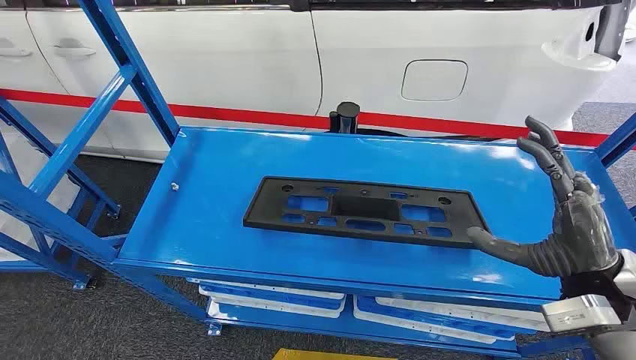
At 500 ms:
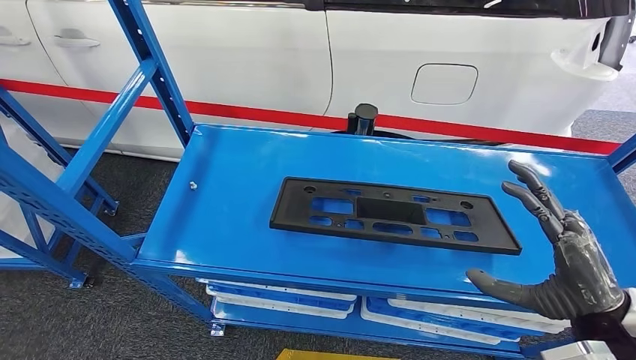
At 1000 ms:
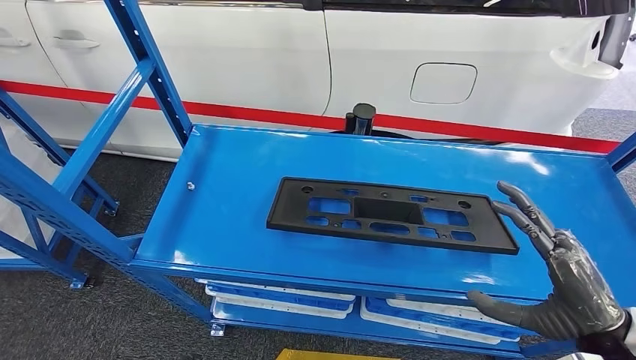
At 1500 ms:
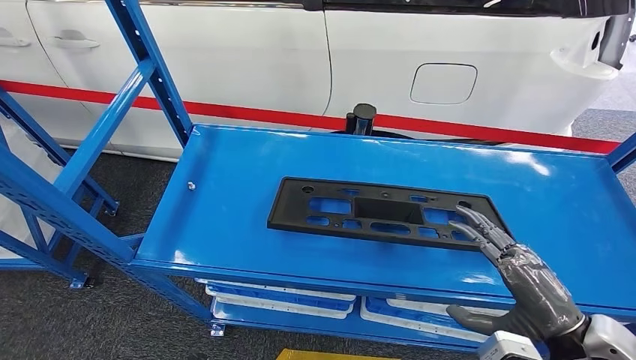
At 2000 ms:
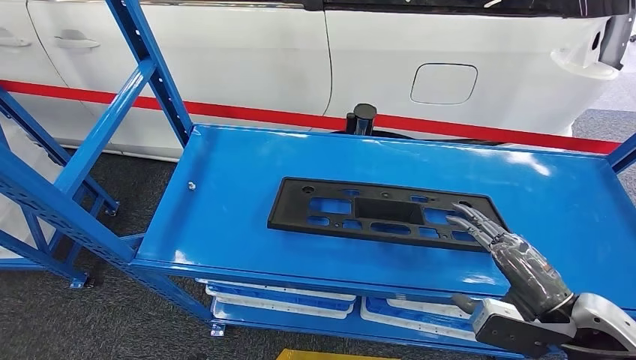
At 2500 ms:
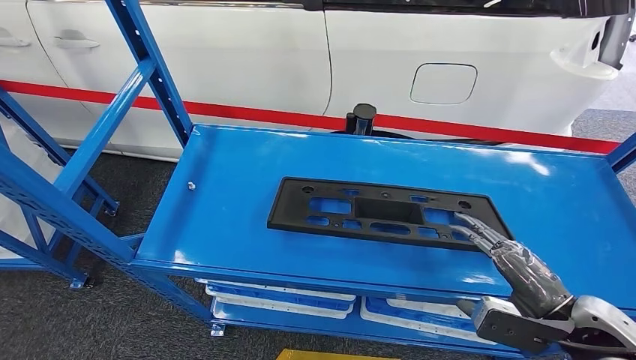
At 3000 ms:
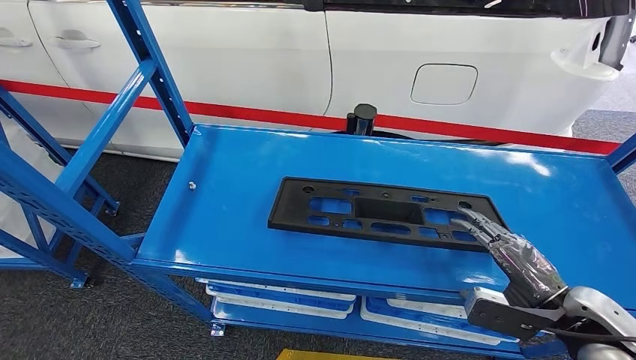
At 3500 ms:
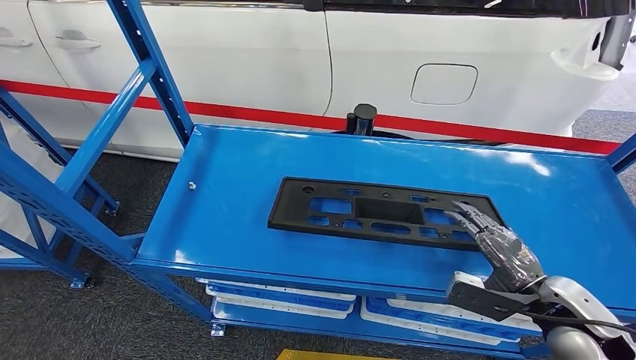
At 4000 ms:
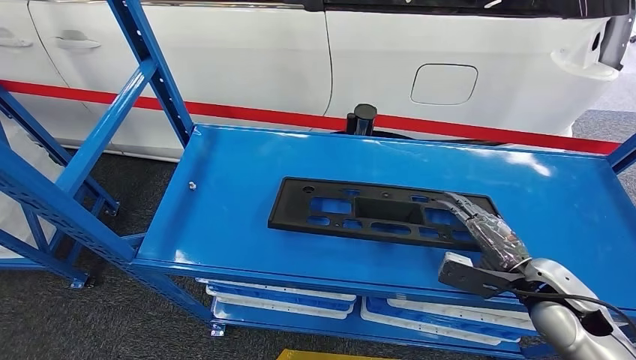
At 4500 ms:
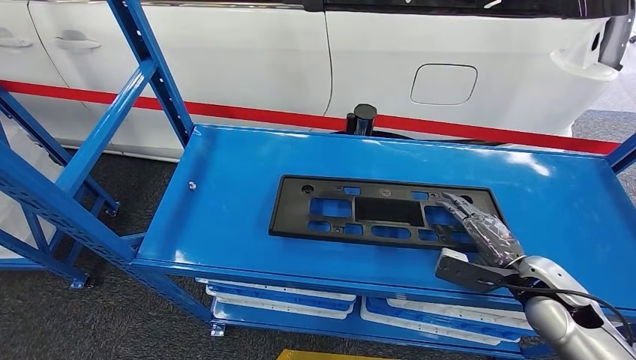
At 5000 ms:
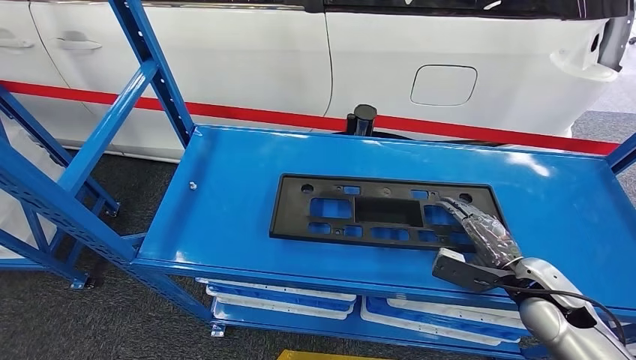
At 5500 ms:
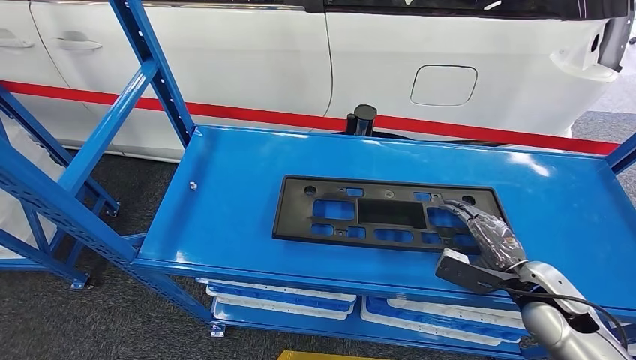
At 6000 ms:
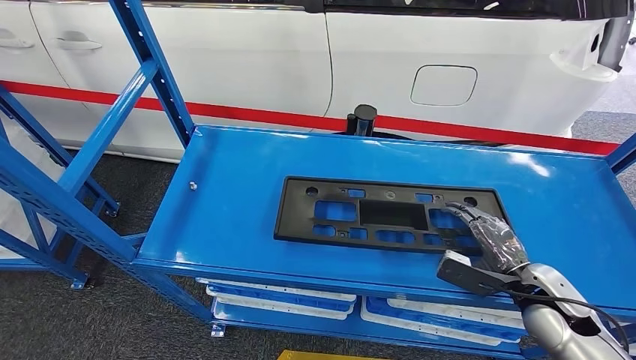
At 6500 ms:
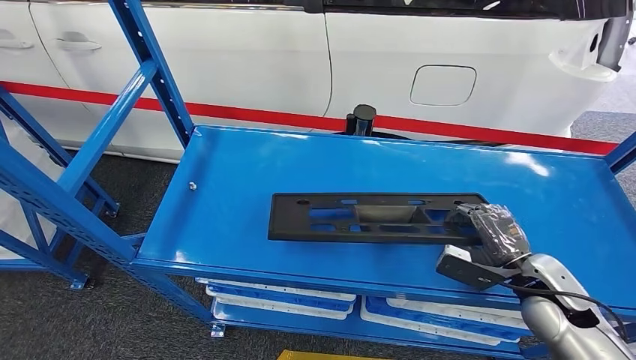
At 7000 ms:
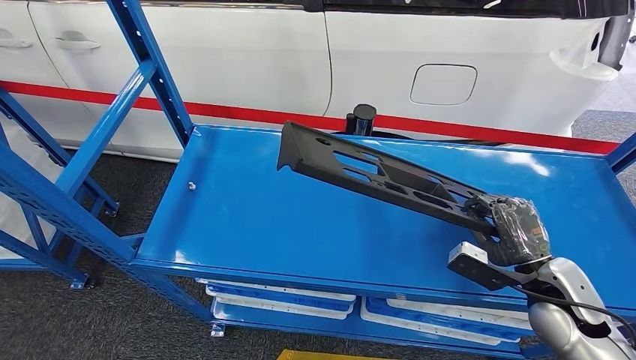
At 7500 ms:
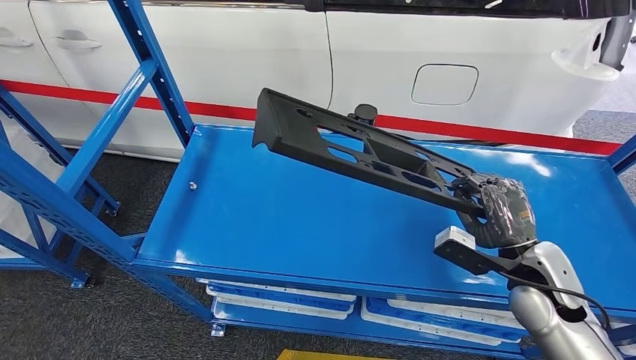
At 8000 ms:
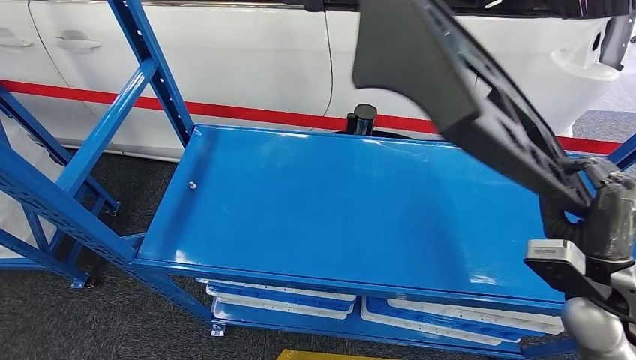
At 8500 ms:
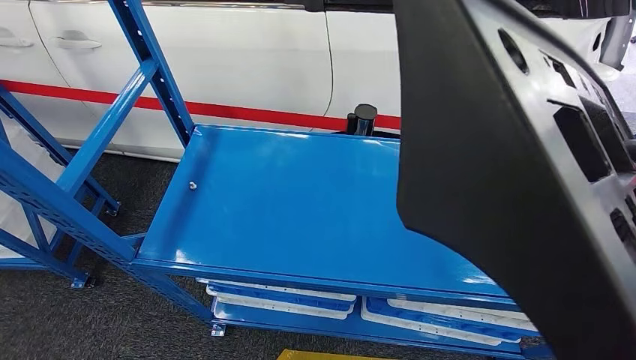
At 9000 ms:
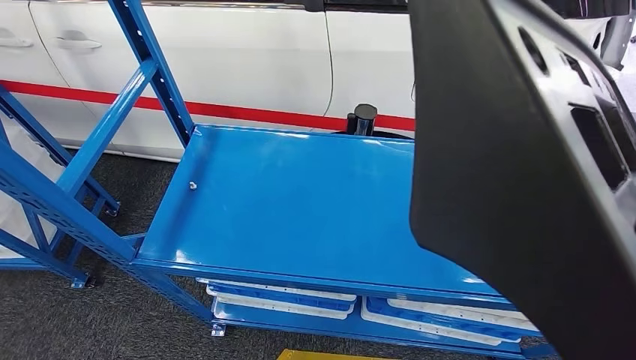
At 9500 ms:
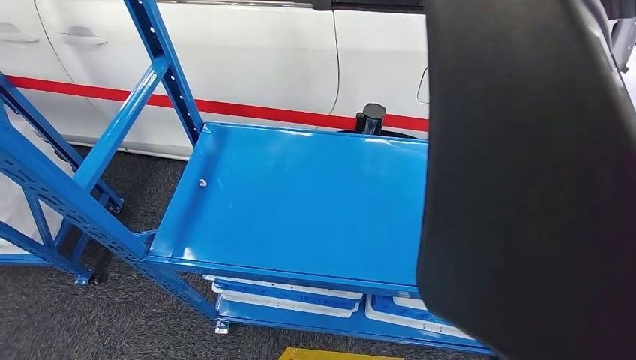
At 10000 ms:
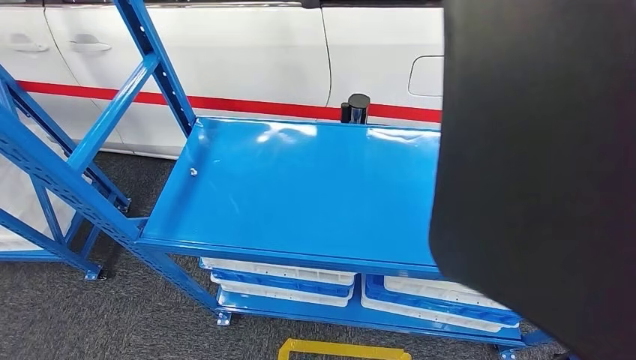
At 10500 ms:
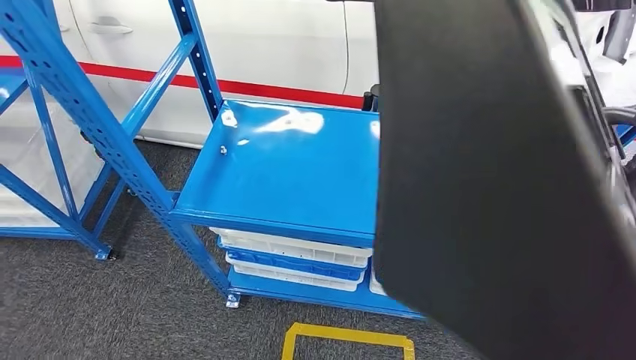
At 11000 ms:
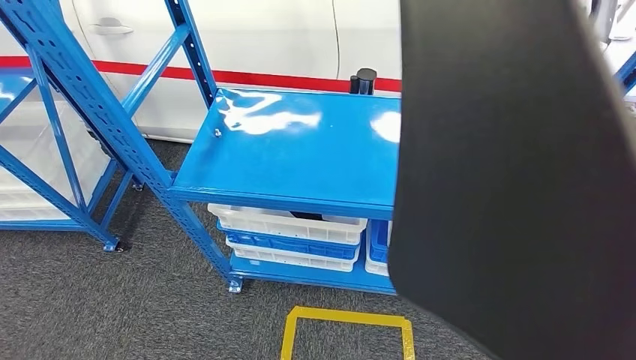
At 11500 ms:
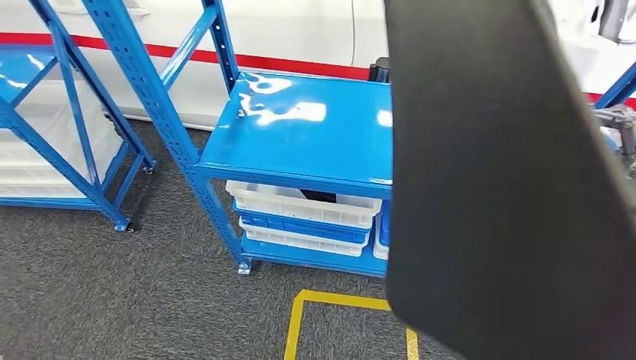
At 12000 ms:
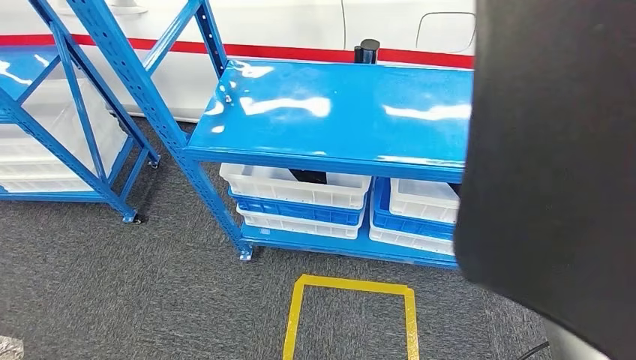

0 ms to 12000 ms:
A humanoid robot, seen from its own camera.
Step, 0 ms to 11000 ms: Pick up the large material from the shelf.
2000 ms to 4000 ms: The right hand goes approximately 10 cm forward and downward.
4000 ms to 6000 ms: The hands make only small movements.

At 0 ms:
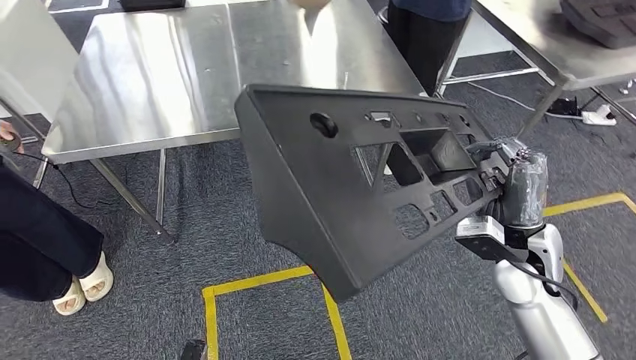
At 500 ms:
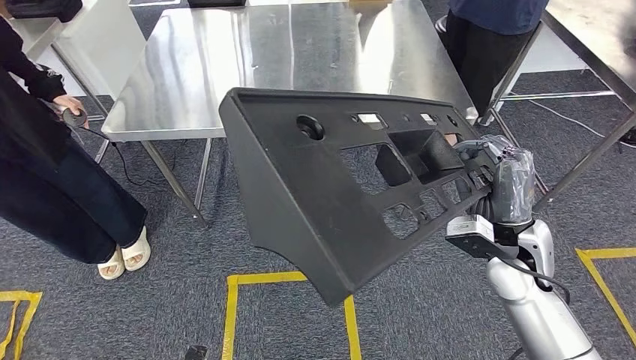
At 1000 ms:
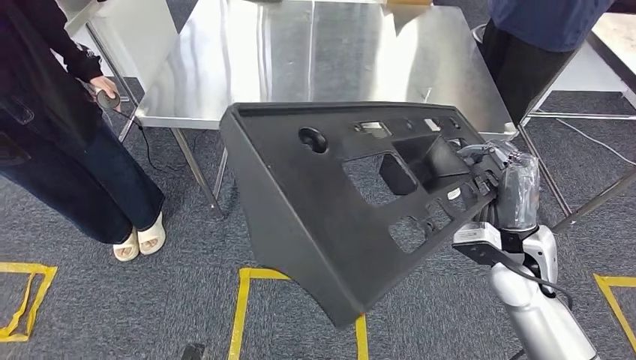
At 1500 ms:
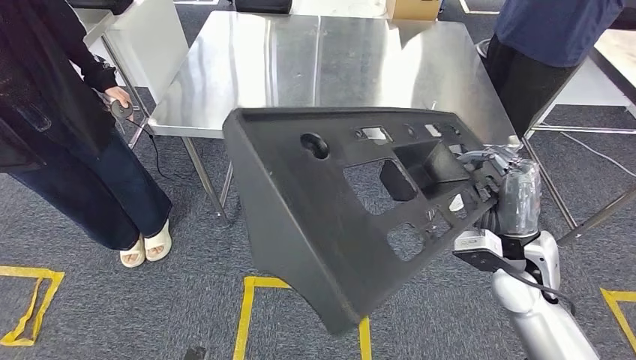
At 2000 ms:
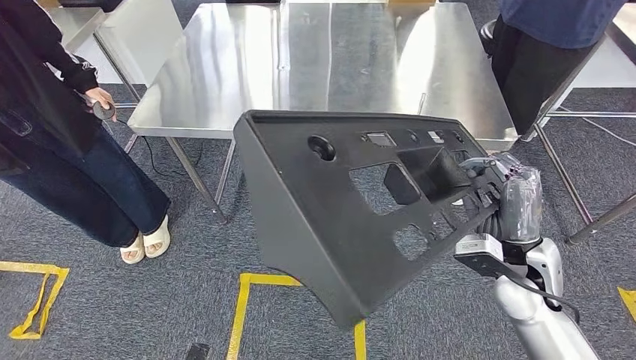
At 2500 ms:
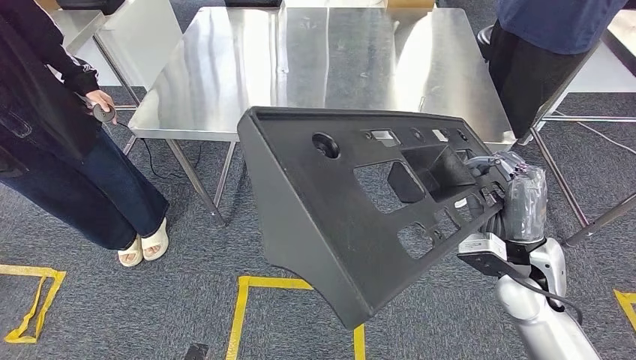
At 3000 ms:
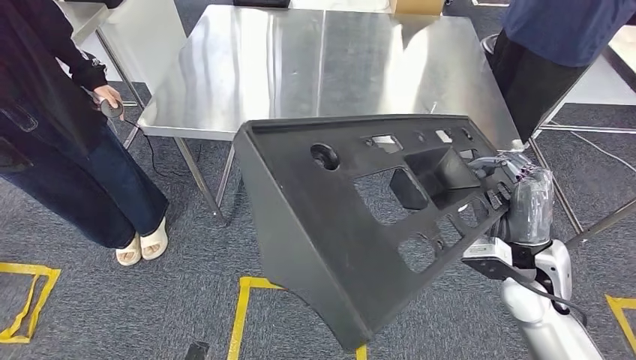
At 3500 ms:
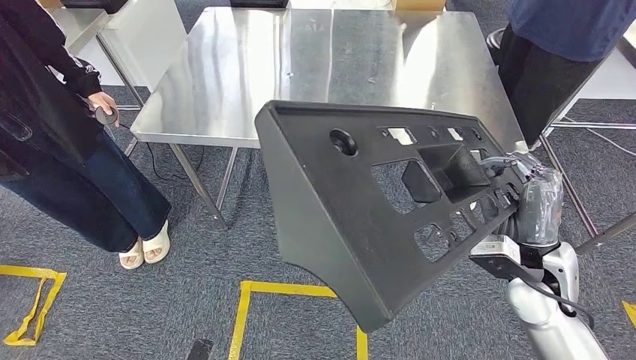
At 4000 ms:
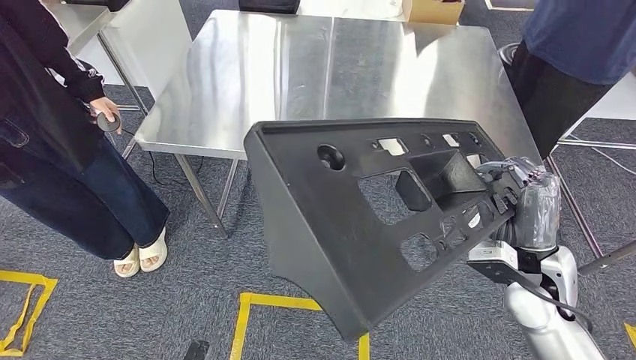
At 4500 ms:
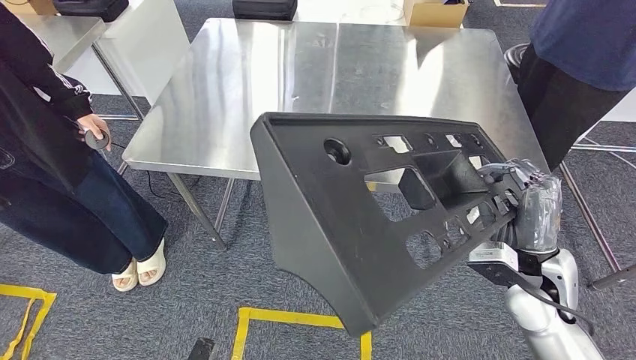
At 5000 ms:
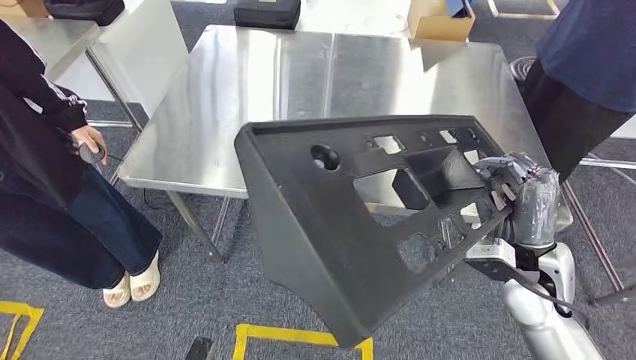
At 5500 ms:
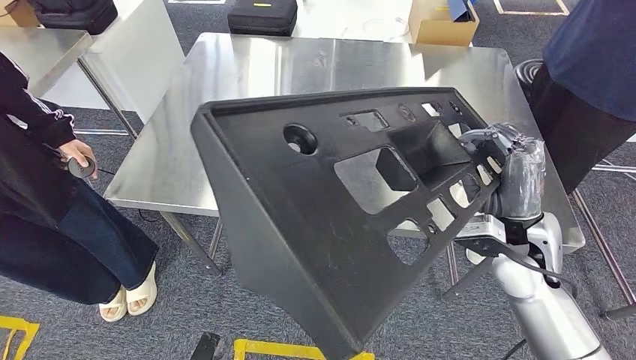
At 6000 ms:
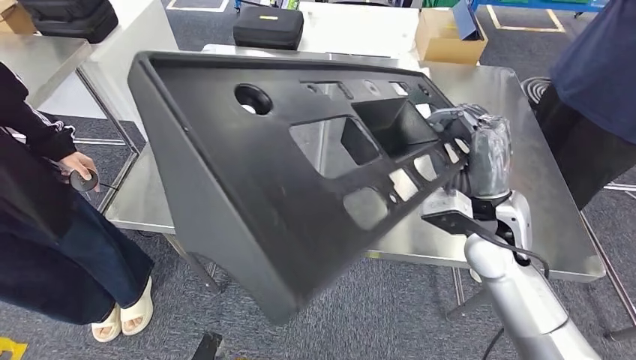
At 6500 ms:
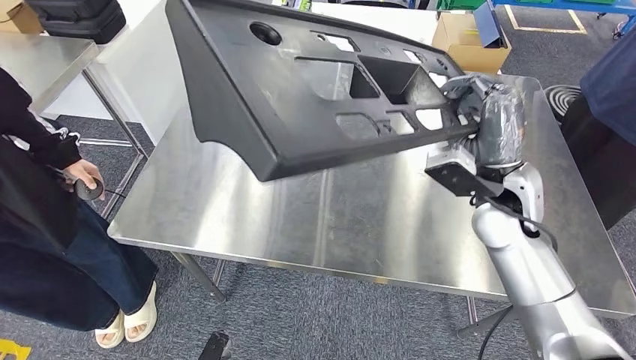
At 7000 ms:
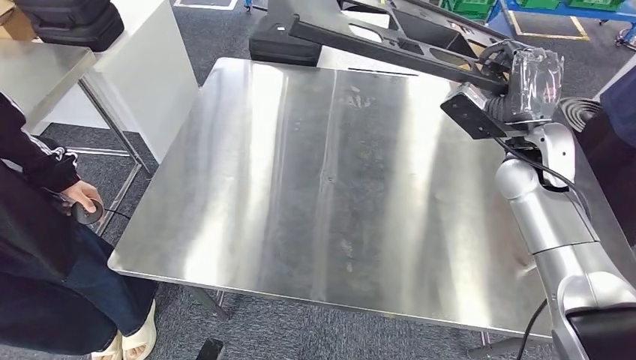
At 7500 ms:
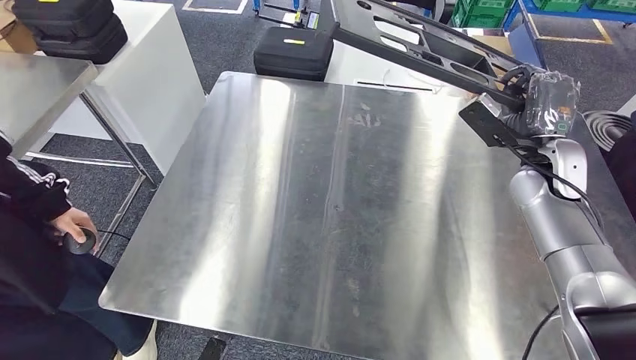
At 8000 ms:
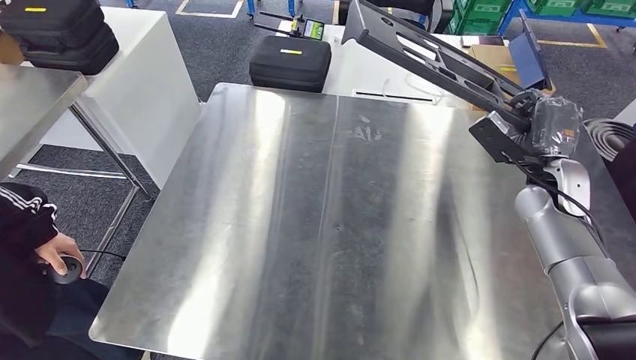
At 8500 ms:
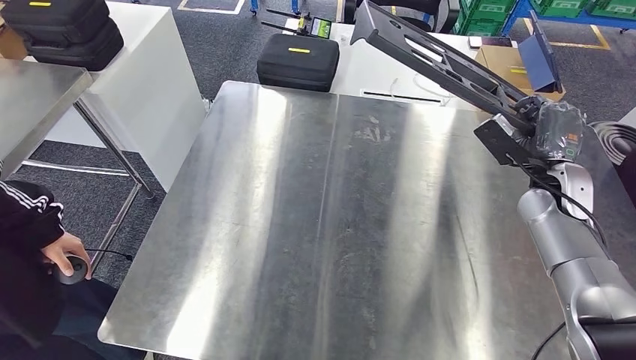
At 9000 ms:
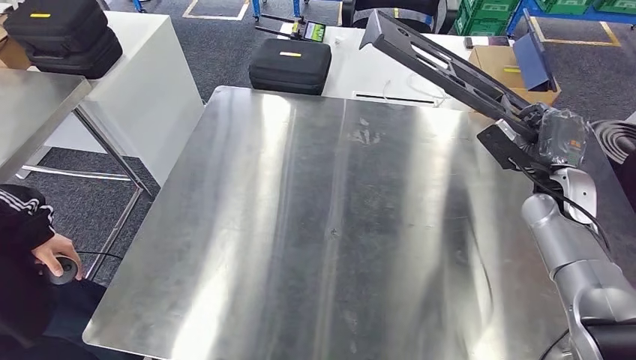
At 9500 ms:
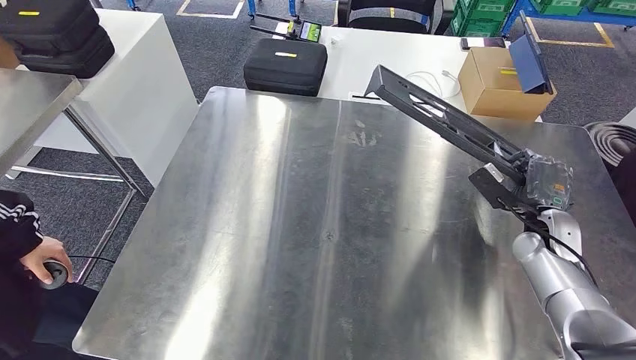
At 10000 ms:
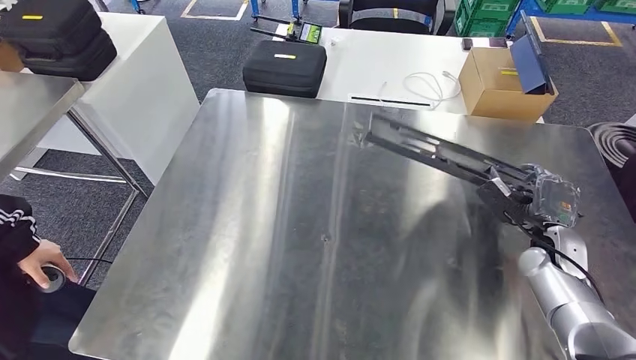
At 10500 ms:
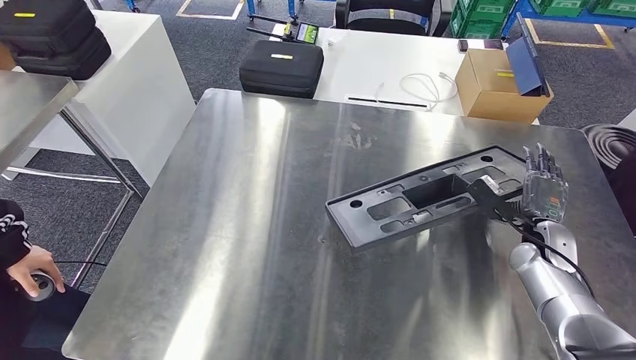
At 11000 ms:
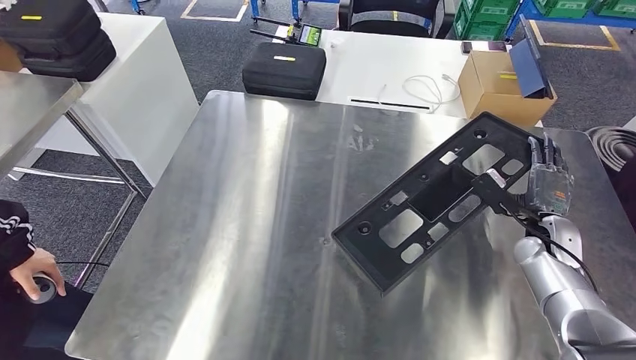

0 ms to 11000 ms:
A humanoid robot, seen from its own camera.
Step, 0 ms to 4500 ms: Move the large material to the front of the workbench.
